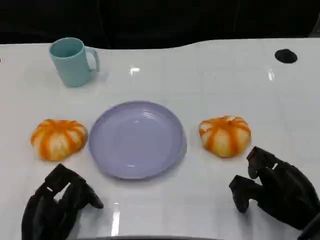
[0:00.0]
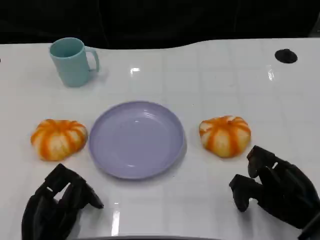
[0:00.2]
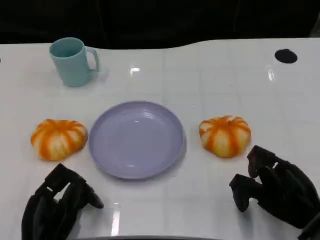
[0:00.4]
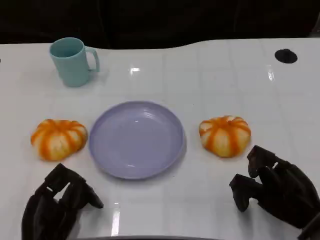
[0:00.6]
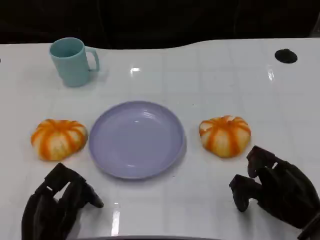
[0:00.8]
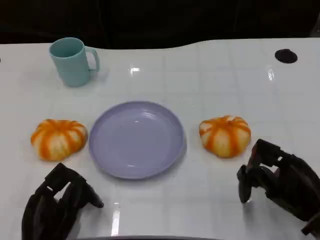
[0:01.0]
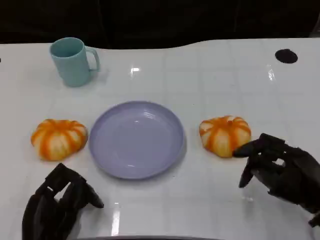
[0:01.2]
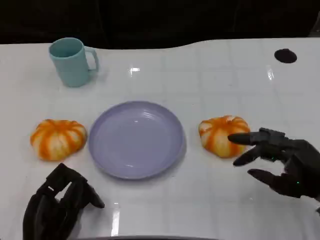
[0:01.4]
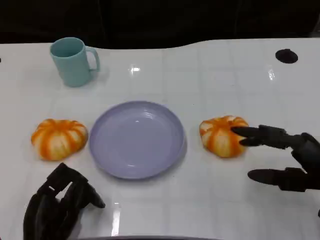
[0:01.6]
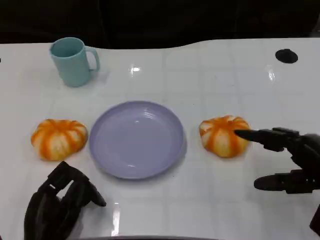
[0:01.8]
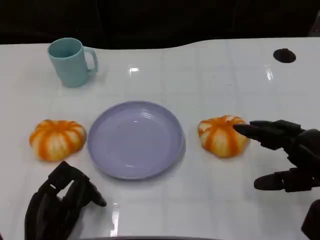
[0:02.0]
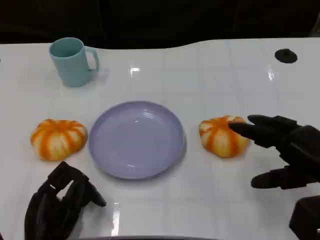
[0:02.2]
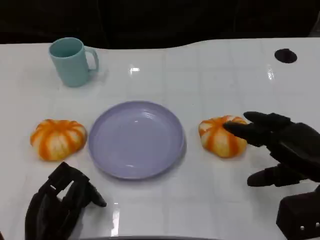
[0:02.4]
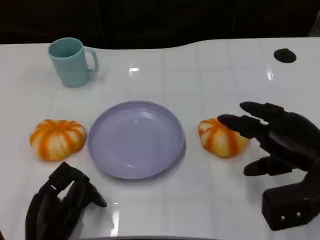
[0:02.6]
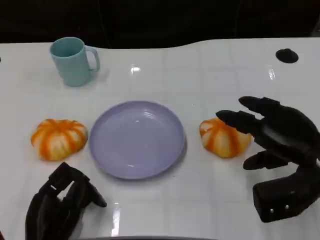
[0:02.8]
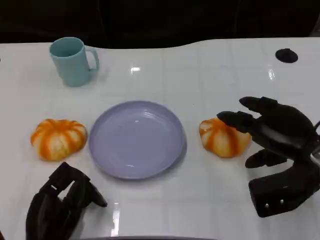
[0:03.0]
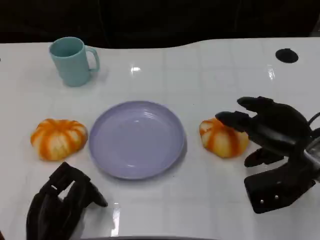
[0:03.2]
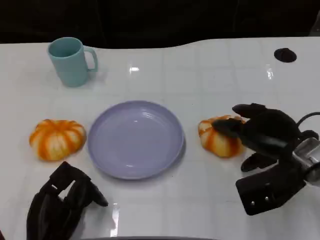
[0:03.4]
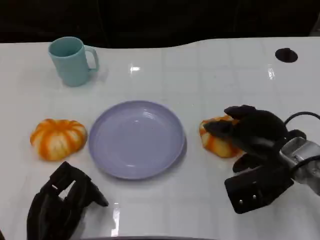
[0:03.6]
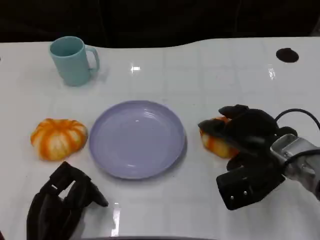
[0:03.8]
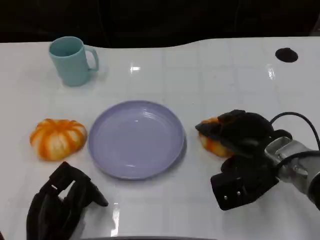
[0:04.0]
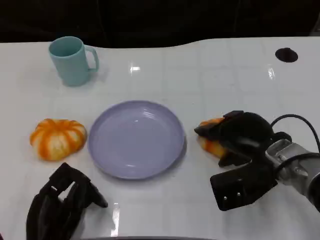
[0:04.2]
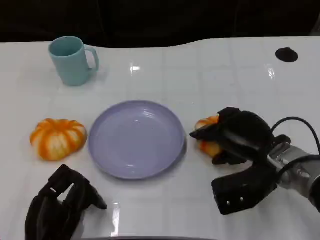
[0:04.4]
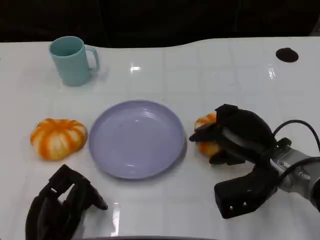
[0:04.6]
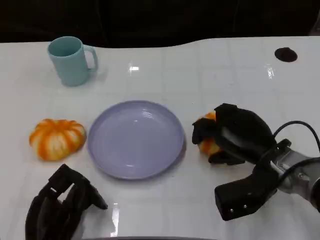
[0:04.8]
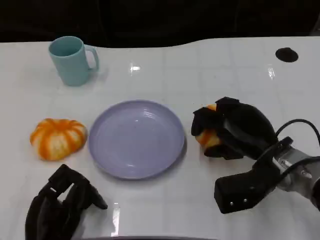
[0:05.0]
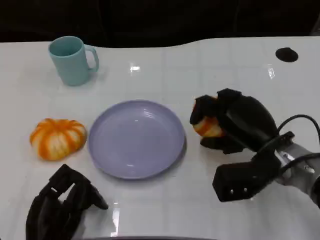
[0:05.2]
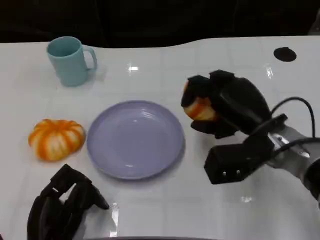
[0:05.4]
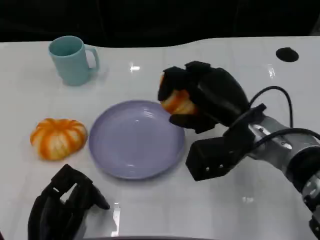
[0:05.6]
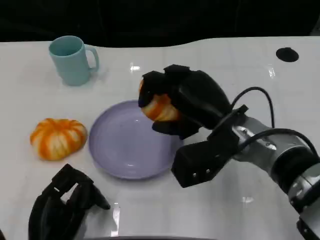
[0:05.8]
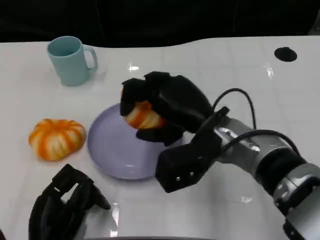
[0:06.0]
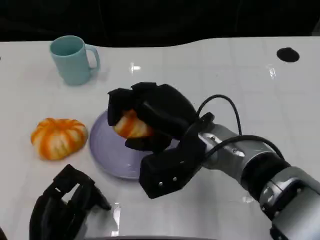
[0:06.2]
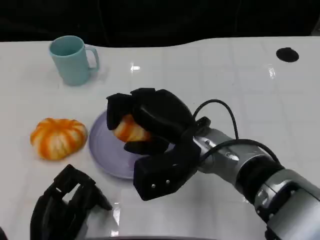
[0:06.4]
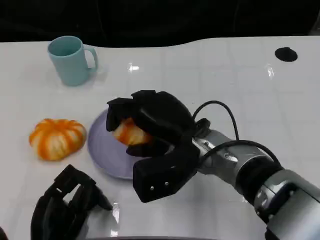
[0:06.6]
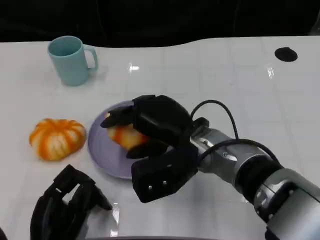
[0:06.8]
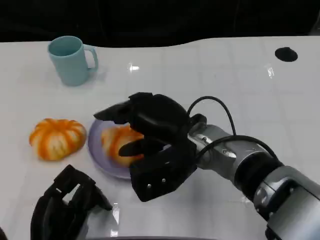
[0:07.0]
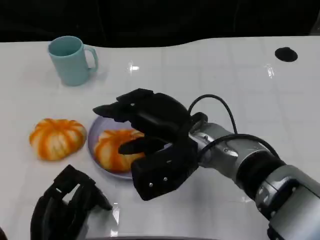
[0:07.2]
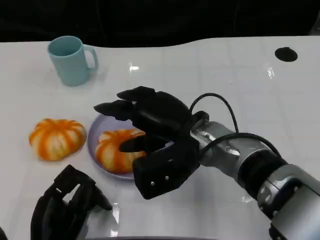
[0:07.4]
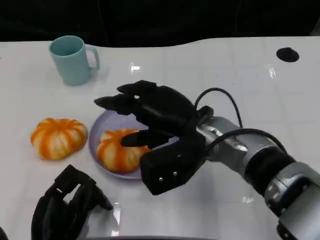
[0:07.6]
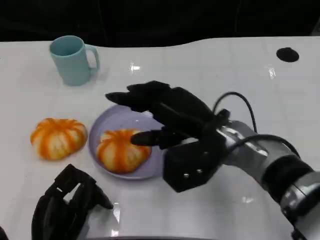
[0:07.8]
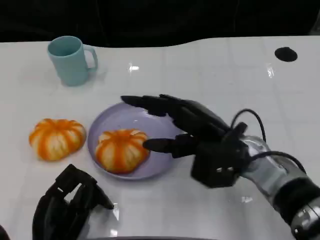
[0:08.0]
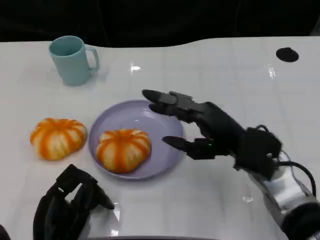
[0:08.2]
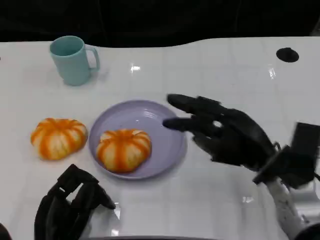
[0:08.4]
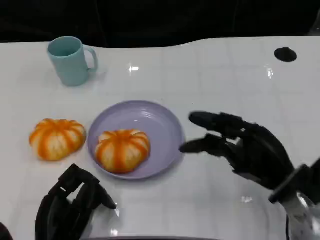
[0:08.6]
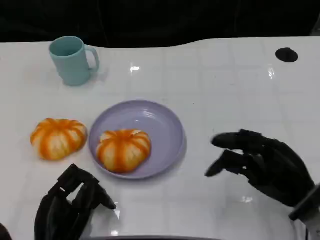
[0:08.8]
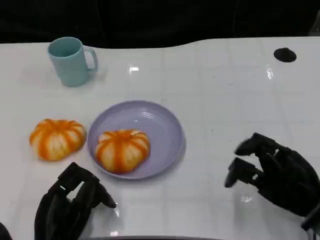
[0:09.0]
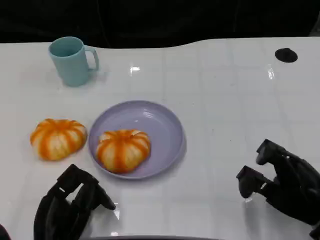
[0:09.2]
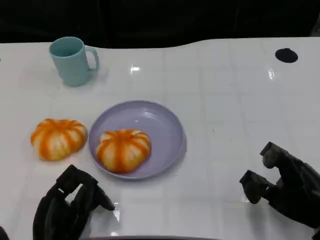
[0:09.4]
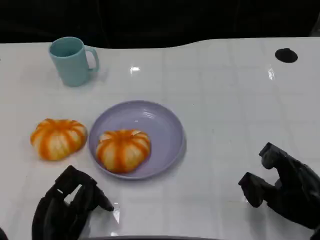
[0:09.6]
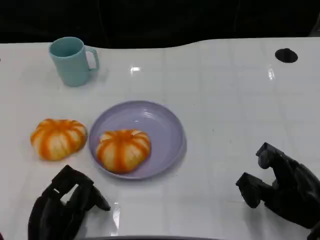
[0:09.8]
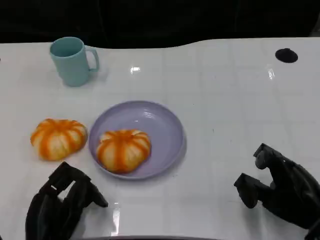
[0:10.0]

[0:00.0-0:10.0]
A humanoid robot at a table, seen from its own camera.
Task of the whole recording: Grasp the bread from the table and place it into the plate.
0:00.0 to 0:01.4: The right hand ends up some 5 cm from where it was.
0:01.4 to 0:02.8: The right hand travels forward by about 5 cm.
0:02.8 to 0:04.2: The right hand travels to the left by roughly 5 cm.
0:04.2 to 0:05.8: The right hand goes about 10 cm to the left and upward.
0:07.2 to 0:08.6: The right hand moves to the right and downward, roughly 15 cm.
0:08.6 to 0:10.0: The right hand ends up some 5 cm from where it was.

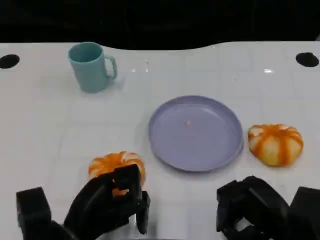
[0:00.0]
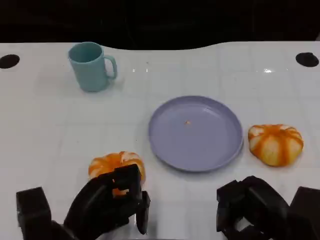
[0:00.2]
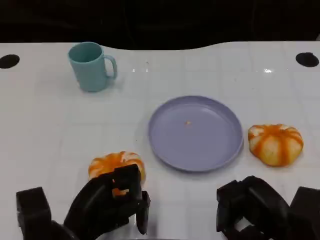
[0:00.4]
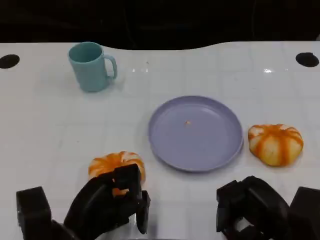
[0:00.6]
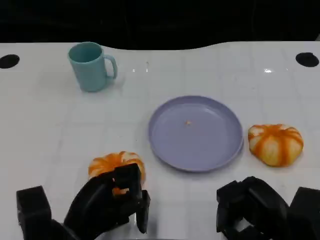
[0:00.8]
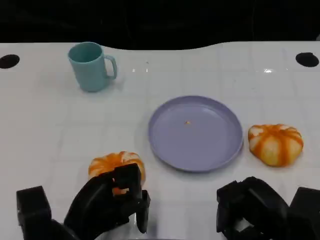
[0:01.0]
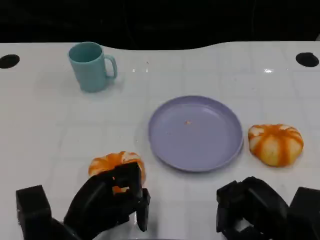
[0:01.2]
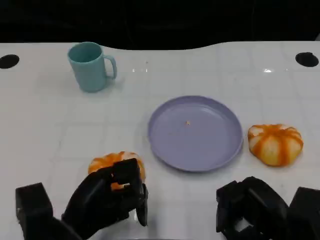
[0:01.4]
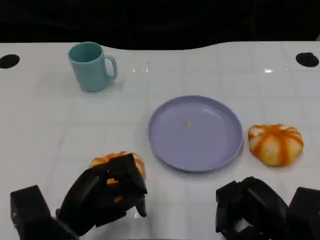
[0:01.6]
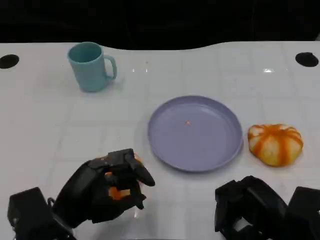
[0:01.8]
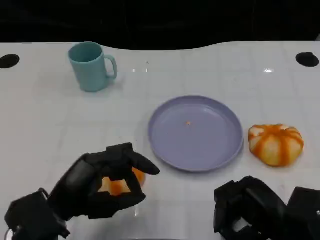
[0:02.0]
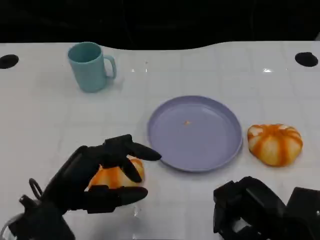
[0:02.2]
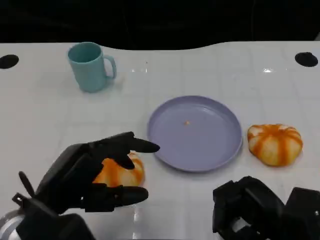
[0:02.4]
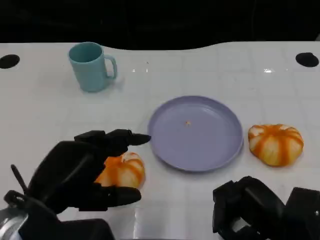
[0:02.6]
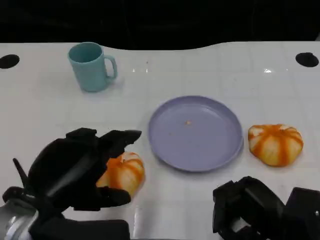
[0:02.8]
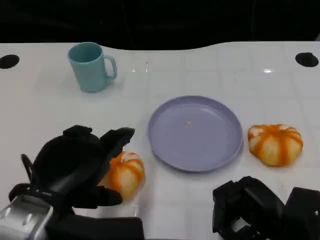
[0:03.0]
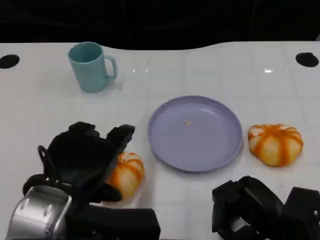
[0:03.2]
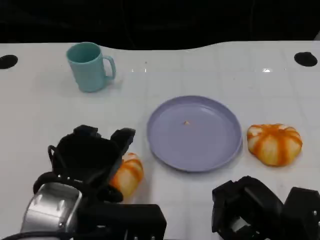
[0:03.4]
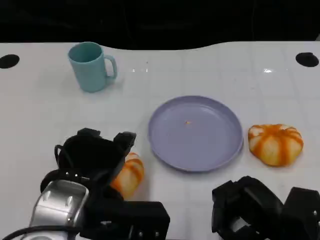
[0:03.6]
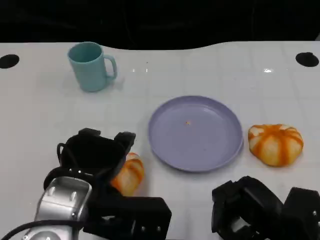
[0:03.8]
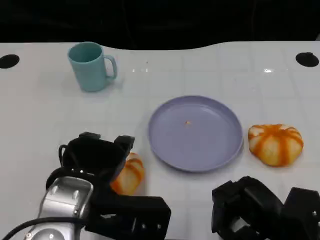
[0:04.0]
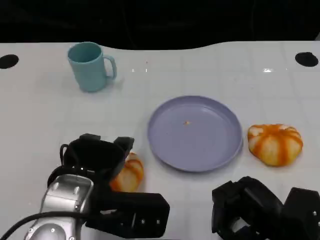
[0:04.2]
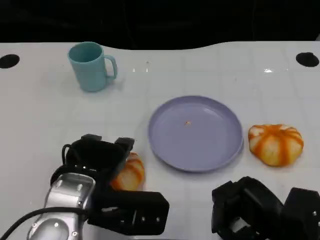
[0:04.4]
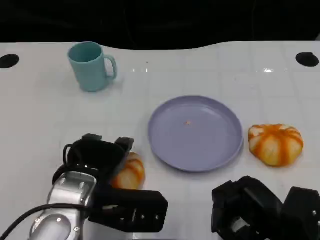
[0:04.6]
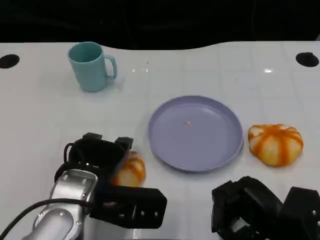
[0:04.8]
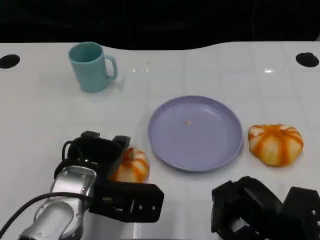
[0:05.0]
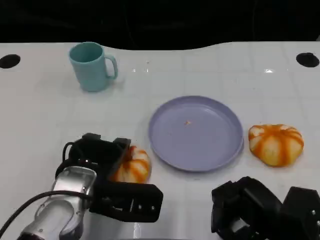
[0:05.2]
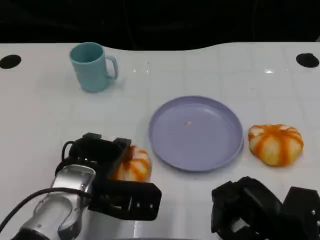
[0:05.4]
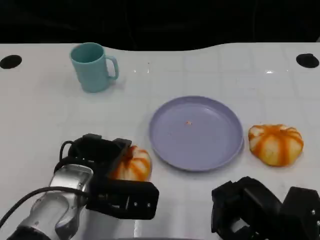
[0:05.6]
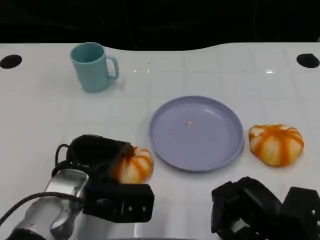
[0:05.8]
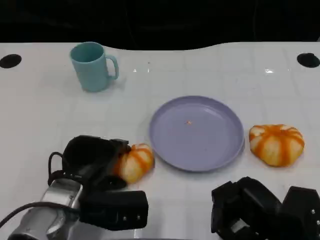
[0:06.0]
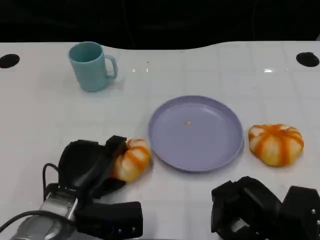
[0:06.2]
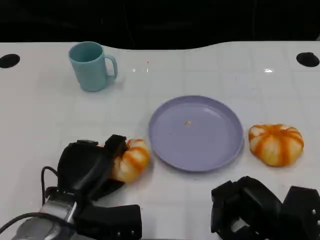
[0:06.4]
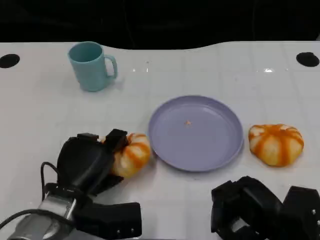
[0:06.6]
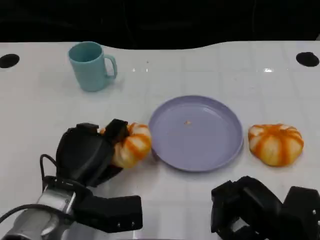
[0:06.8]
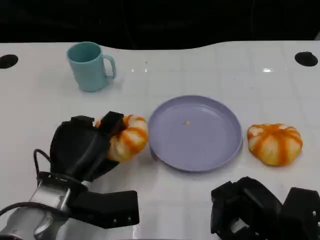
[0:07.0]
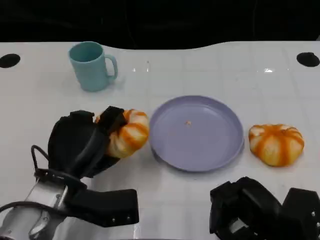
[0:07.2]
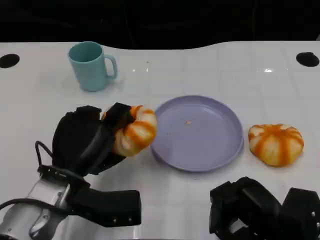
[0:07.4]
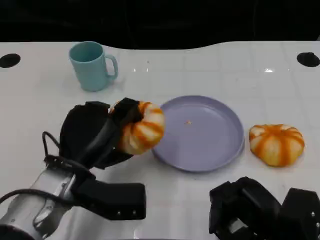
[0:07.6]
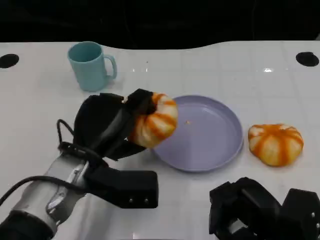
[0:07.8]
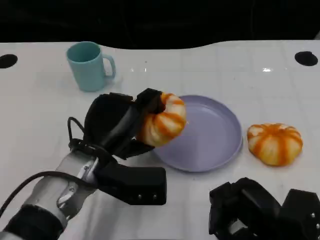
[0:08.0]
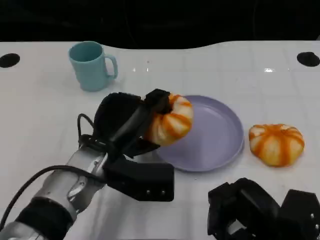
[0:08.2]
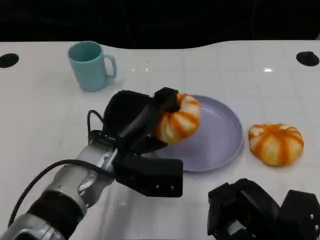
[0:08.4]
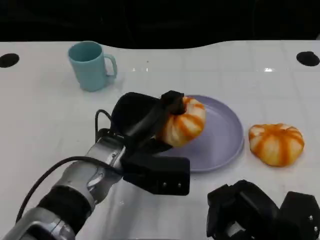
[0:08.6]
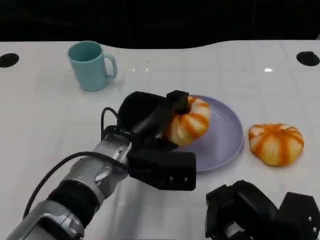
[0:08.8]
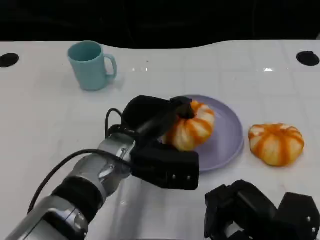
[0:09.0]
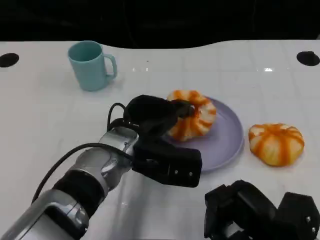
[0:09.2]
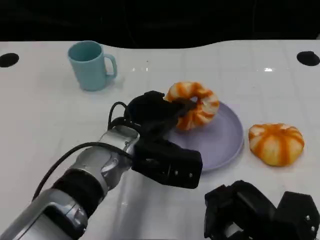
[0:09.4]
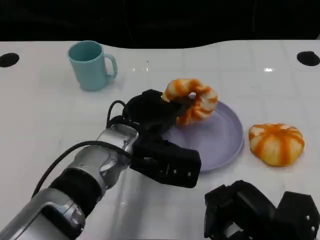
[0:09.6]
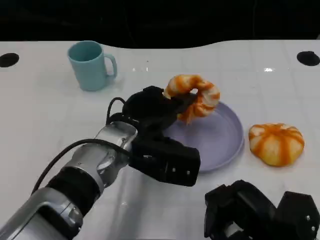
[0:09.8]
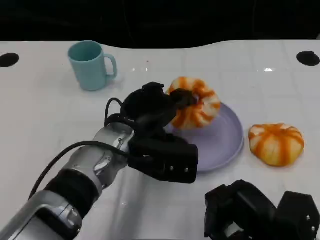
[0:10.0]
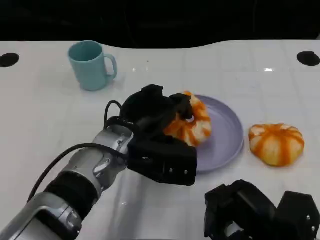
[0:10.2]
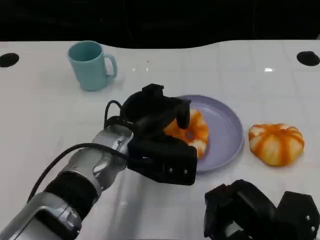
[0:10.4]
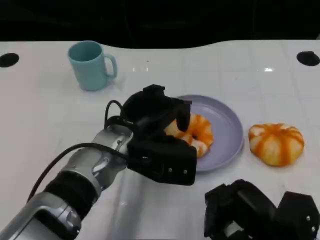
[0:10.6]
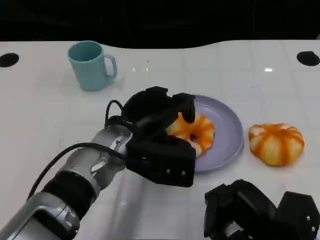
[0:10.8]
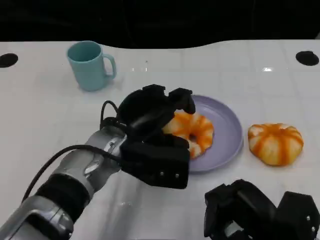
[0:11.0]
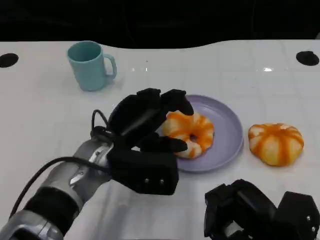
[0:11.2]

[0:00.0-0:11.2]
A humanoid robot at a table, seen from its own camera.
Task of the whole recording: Grasp the bread from the table and place it into the plate.
0:00.0 to 0:01.6: The hands make only small movements.
0:01.6 to 0:03.2: The left hand moves upward, approximately 10 cm.
0:03.2 to 0:04.8: The left hand shifts roughly 10 cm downward and forward.
0:04.8 to 0:06.4: The left hand shifts some 5 cm downward.
0:06.4 to 0:08.0: The left hand moves upward, approximately 5 cm.
0:08.0 to 0:09.6: The left hand ends up some 5 cm from where it was.

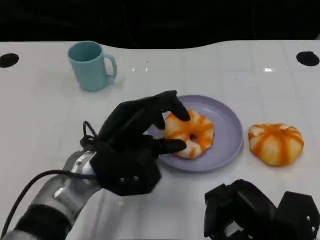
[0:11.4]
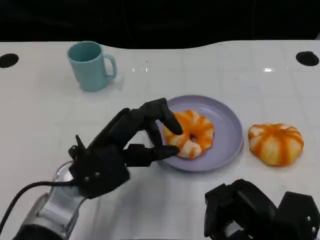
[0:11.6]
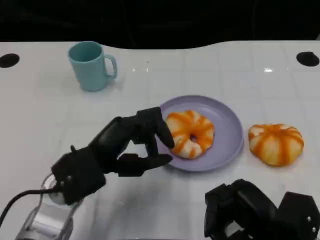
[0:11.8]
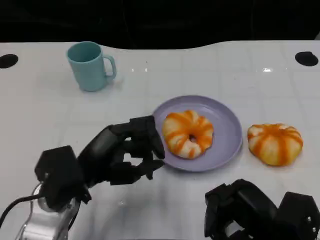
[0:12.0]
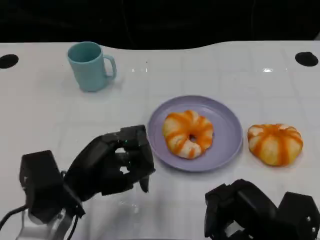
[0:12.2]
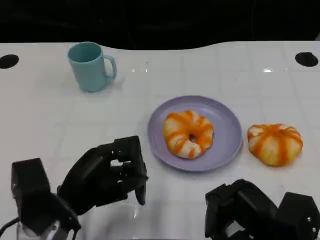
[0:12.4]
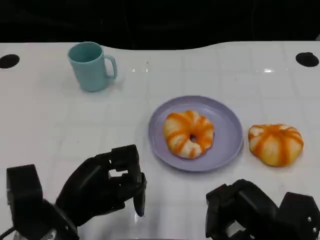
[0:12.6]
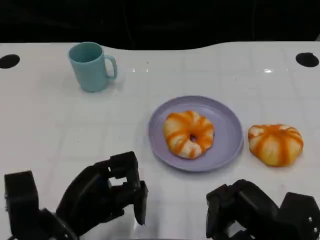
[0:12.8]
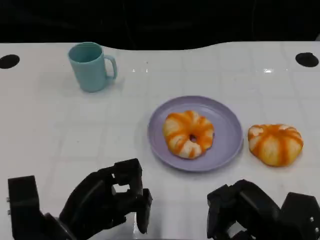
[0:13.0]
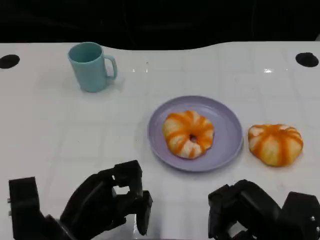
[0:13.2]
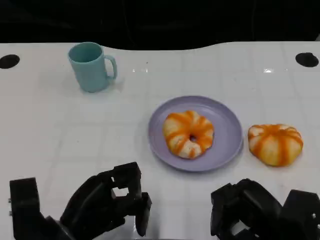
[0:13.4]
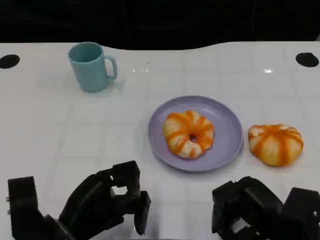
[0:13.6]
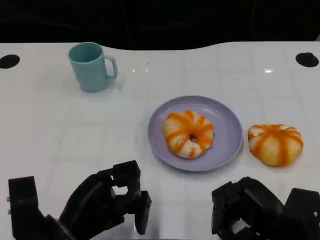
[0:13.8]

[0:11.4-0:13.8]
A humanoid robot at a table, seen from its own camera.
Task of the whole recording: Grasp the bread from the table and place it into the plate.
0:11.4 to 0:12.6: The left hand is displaced backward and to the left by some 10 cm.
0:12.6 to 0:13.8: The hands stay close to where they were, moving slightly.
